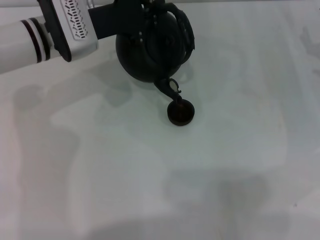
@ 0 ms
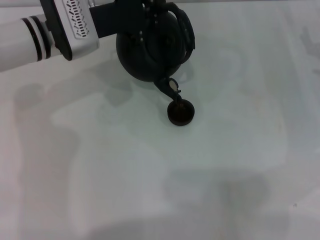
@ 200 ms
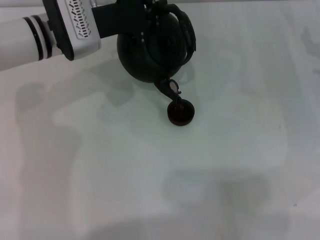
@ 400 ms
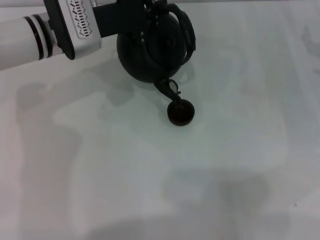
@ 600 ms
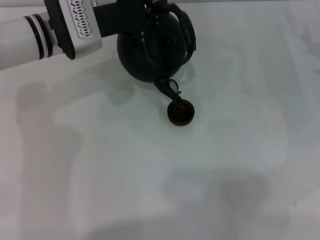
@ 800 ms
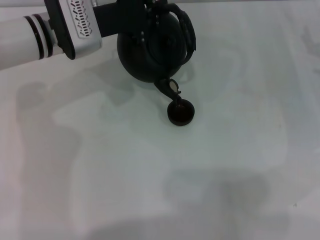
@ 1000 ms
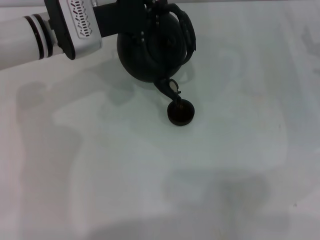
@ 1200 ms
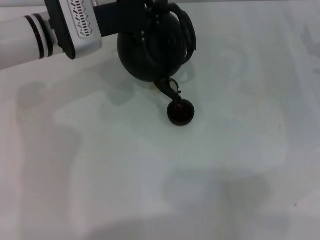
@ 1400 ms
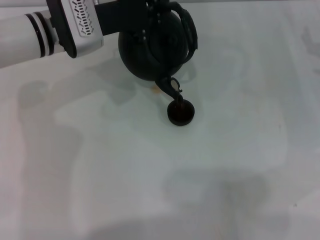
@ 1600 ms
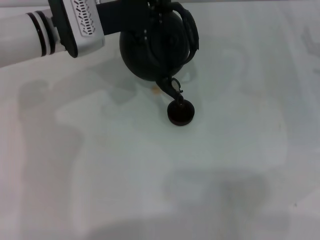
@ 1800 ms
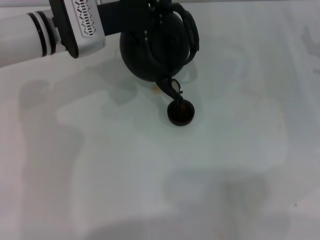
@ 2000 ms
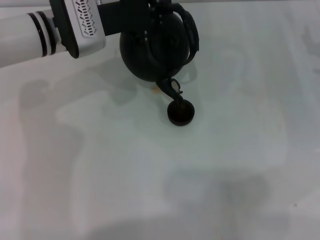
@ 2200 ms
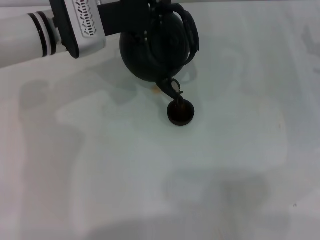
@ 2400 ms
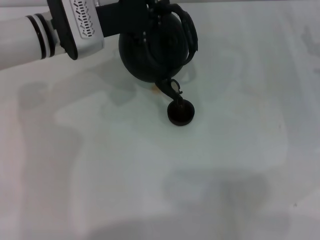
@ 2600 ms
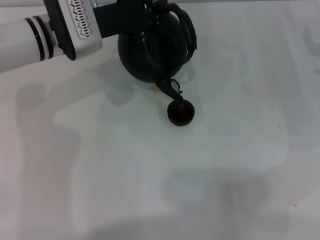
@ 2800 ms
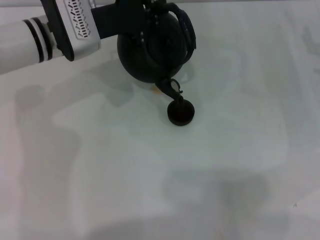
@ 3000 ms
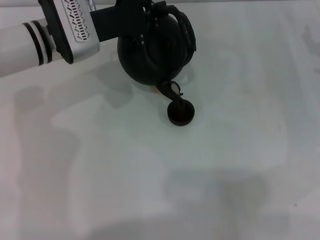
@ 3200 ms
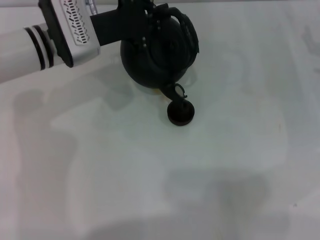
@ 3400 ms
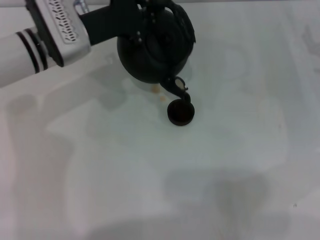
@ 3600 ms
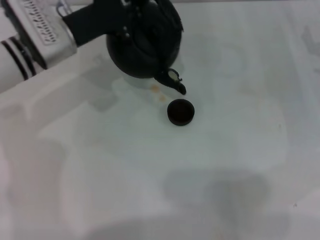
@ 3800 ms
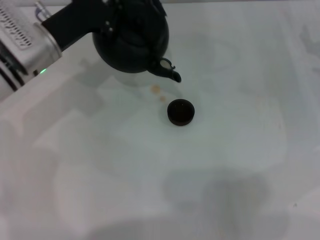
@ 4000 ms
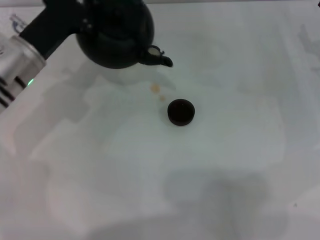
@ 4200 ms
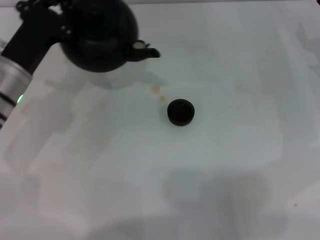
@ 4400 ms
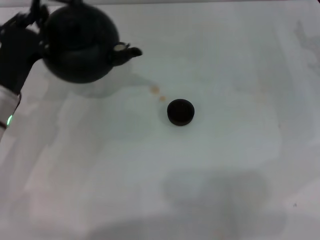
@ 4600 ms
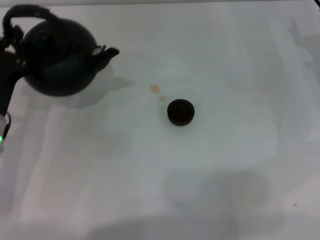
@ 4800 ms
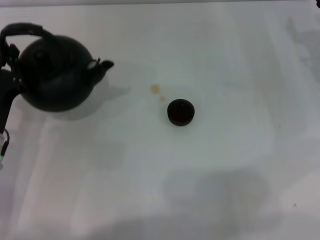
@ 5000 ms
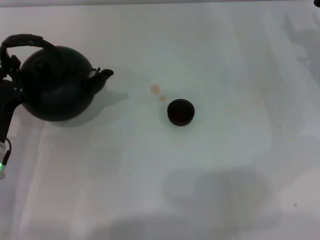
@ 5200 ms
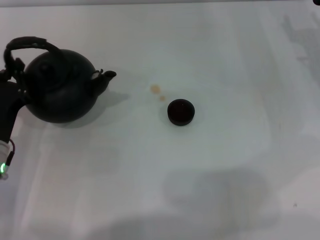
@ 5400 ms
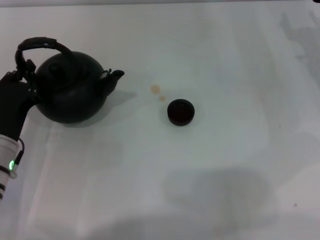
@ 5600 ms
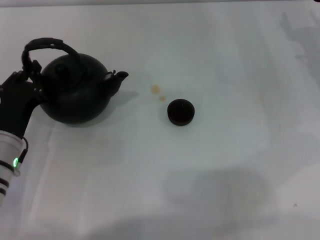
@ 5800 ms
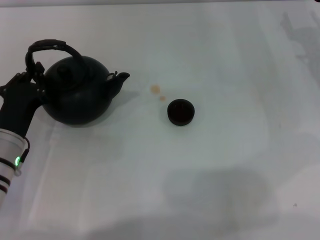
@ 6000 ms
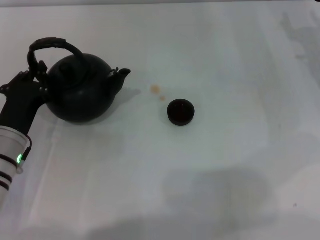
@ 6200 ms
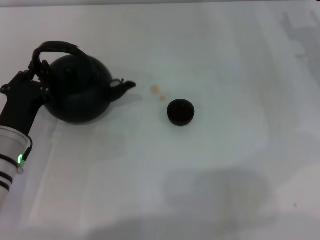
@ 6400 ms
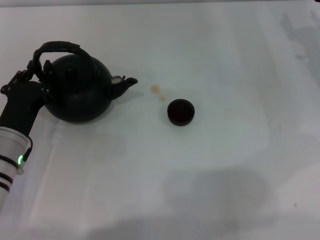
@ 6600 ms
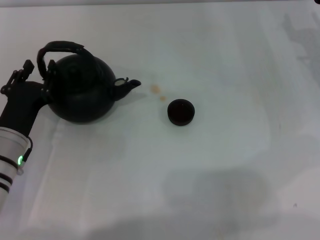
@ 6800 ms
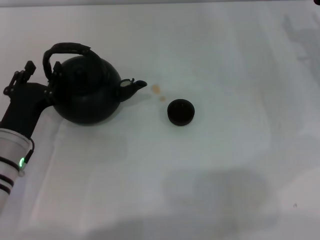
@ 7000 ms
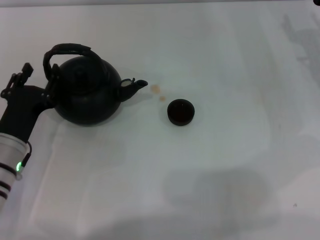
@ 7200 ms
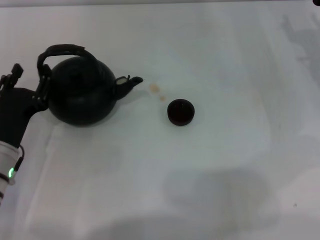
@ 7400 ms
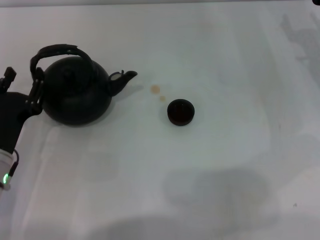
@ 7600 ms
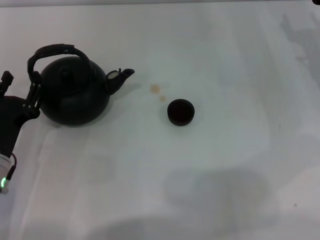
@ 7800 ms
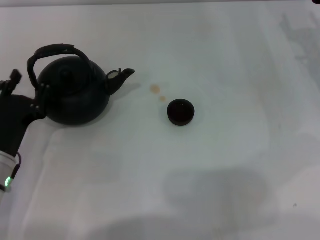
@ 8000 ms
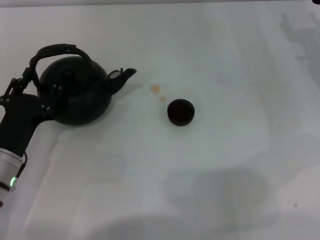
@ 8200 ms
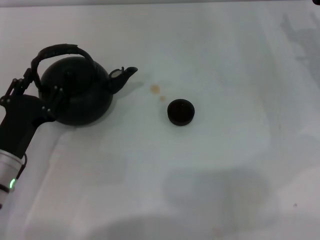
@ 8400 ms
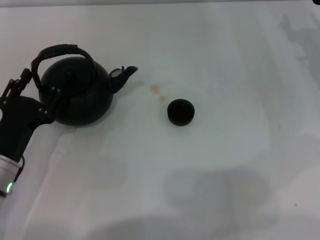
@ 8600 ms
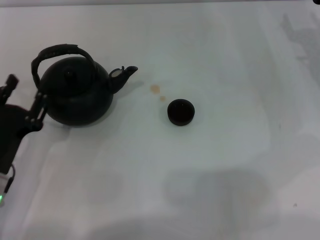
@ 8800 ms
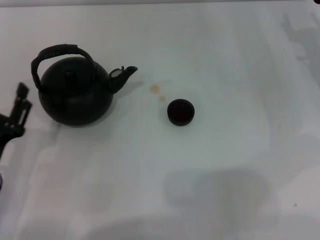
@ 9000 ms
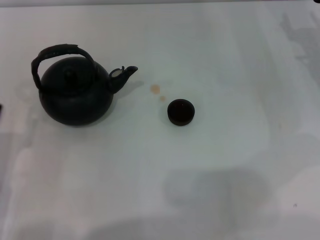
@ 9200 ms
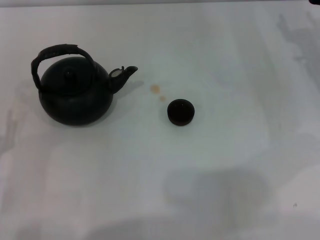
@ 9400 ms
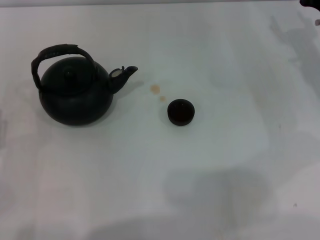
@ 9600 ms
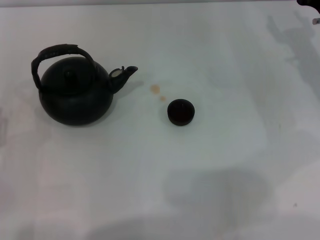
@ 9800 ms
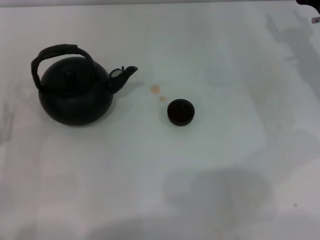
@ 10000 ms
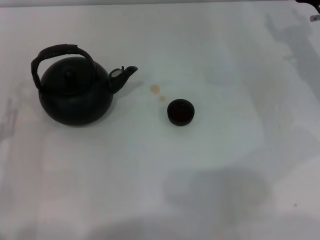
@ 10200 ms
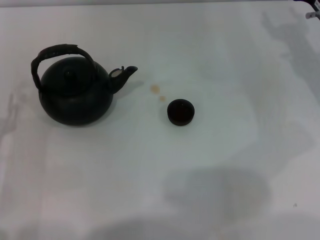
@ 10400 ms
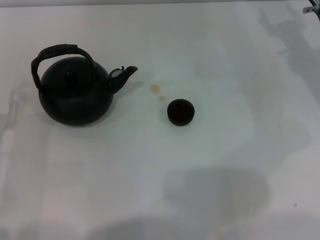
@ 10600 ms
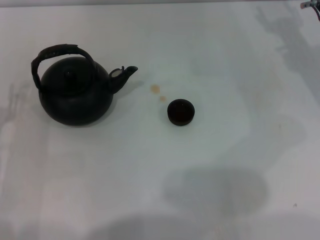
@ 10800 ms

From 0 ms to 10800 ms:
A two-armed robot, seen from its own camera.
Task of the whole recording: Grasp the handle of the teapot with one hand and pour tea into the teacup.
Step, from 0 ms to 3800 ms: Pour tea into the teacup with the left gripper.
Step, from 4000 ms to 8800 ms: Put down the teapot with the left gripper.
From 0 ms to 3000 ms: Both grippers stay about where they are.
From 3000 ms to 4600 ms: The left gripper heads backward, to the left and downward, covering some 15 cm.
From 4600 ms to 6200 ms: The left gripper shifts by about 5 cm.
From 6200 ms to 7800 ms: The left gripper opens its fingers.
From 7800 ms to 9200 ms: The left gripper shifts approximately 5 cm backward.
